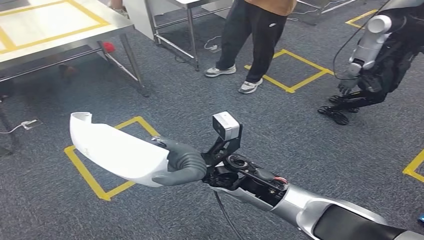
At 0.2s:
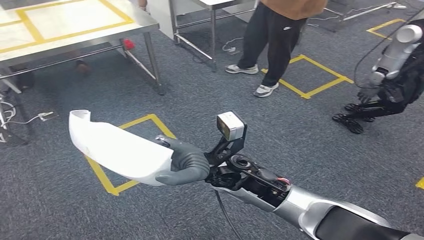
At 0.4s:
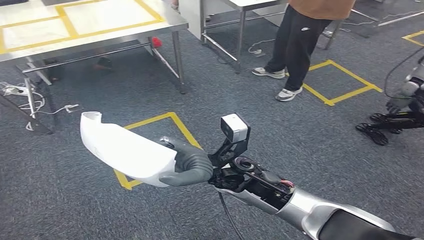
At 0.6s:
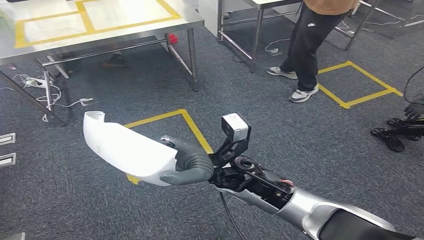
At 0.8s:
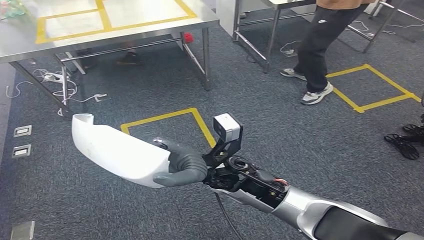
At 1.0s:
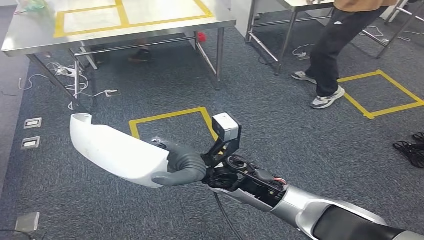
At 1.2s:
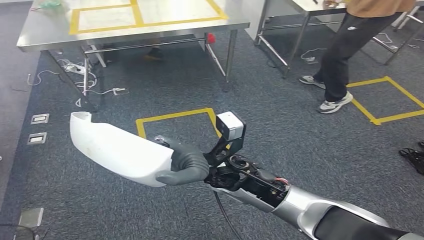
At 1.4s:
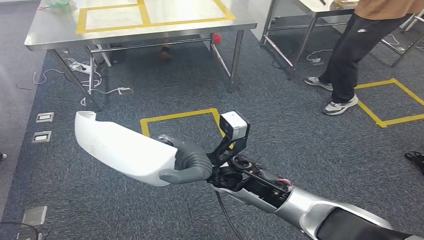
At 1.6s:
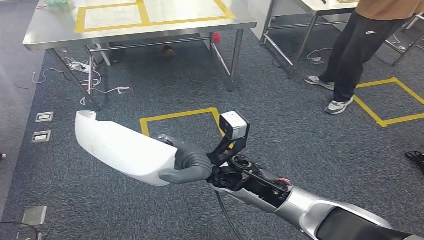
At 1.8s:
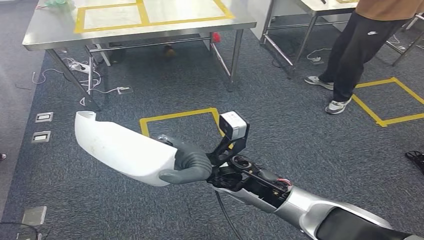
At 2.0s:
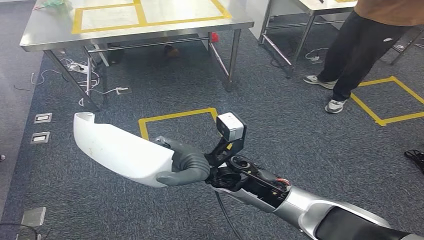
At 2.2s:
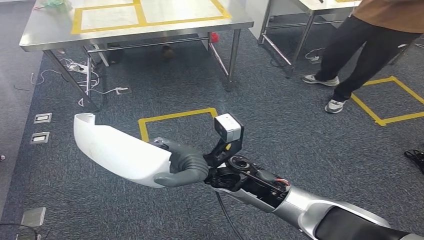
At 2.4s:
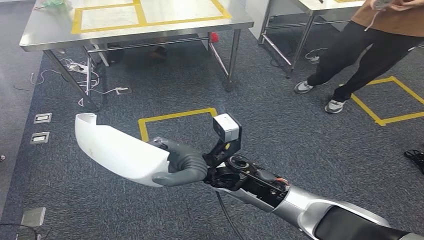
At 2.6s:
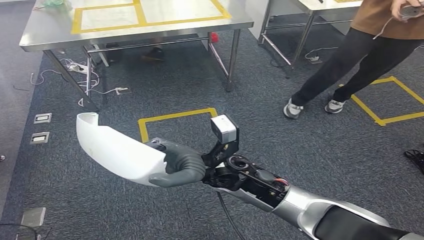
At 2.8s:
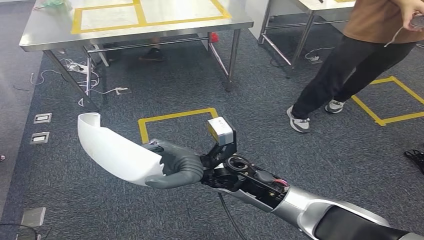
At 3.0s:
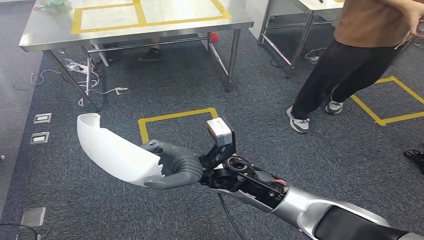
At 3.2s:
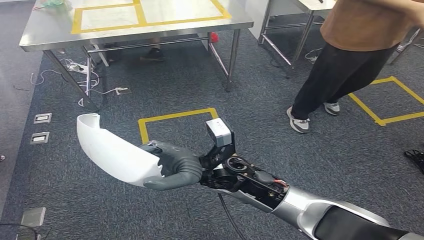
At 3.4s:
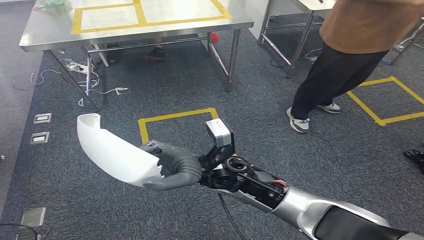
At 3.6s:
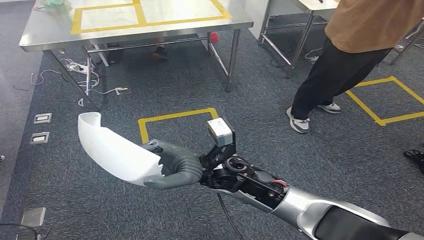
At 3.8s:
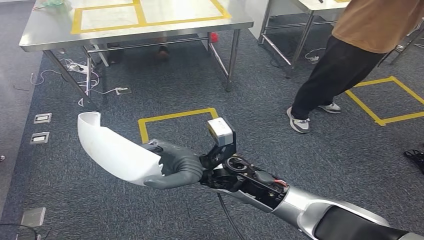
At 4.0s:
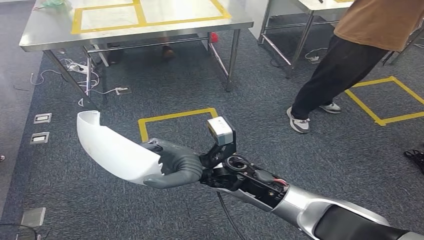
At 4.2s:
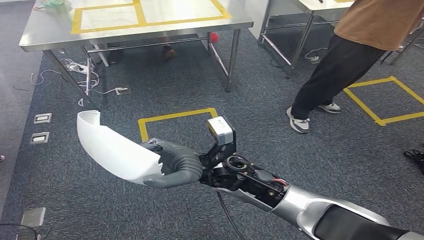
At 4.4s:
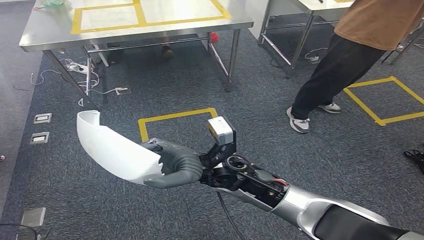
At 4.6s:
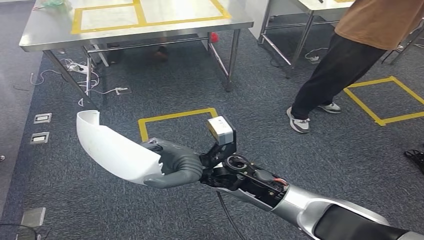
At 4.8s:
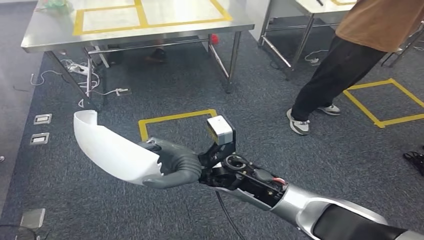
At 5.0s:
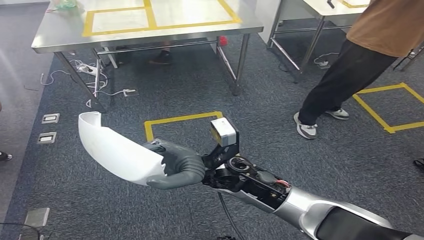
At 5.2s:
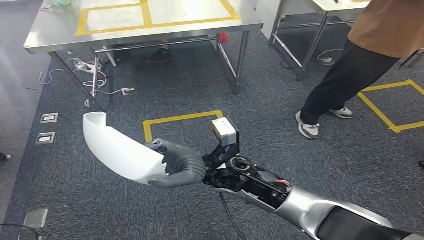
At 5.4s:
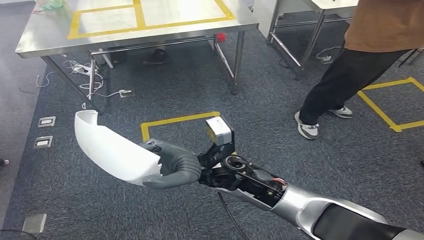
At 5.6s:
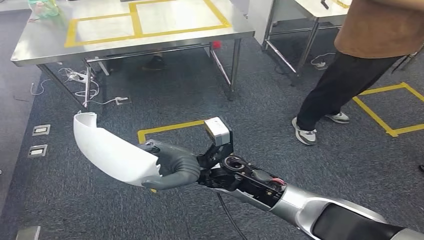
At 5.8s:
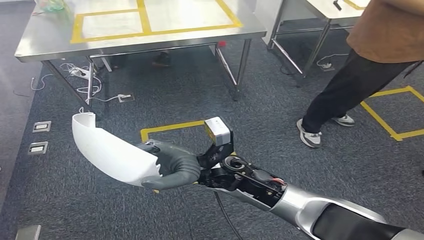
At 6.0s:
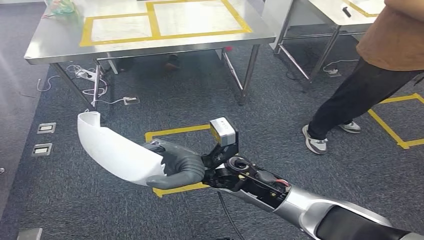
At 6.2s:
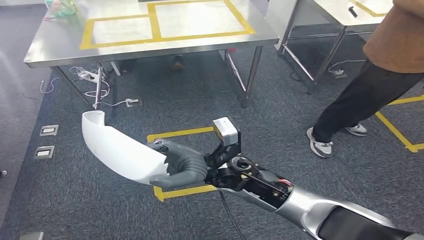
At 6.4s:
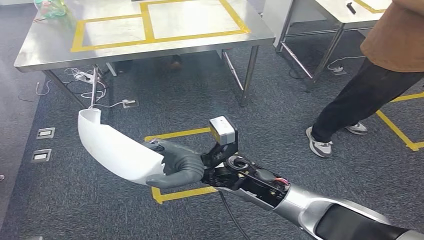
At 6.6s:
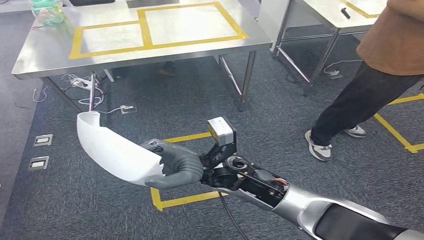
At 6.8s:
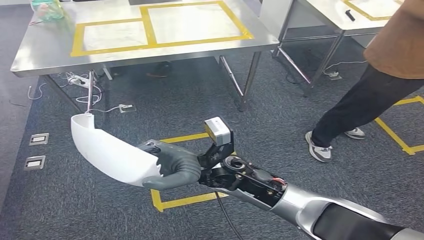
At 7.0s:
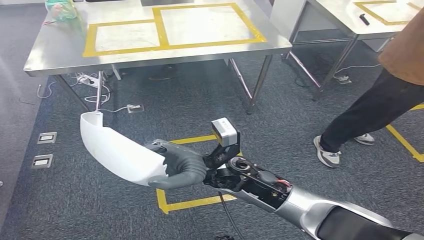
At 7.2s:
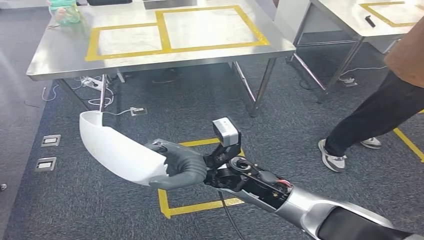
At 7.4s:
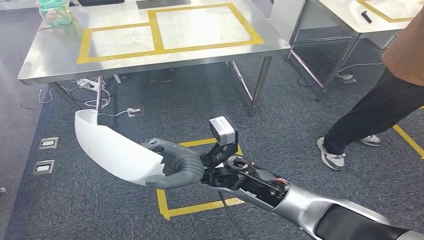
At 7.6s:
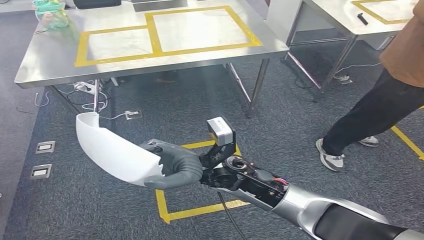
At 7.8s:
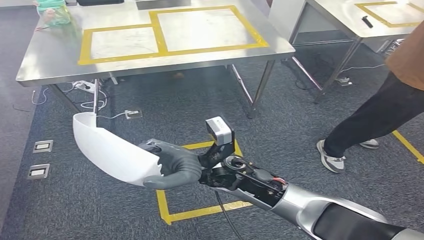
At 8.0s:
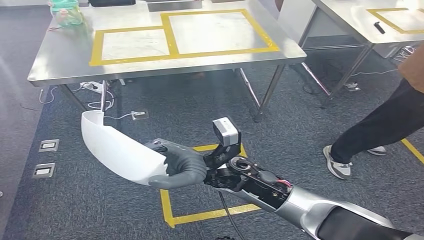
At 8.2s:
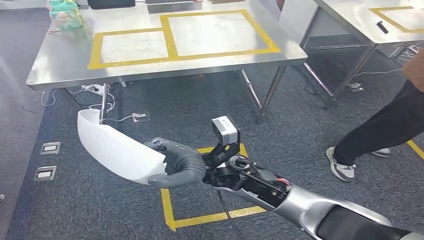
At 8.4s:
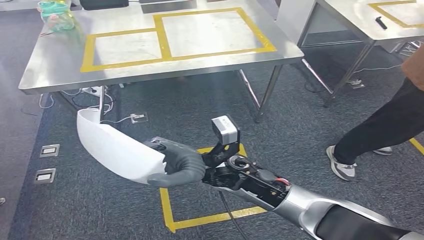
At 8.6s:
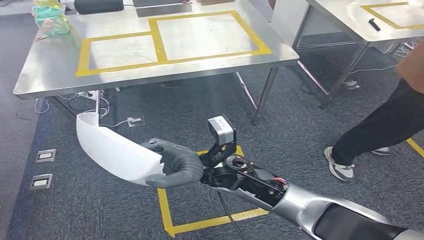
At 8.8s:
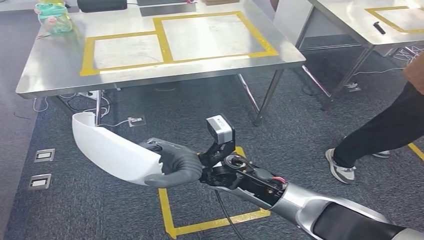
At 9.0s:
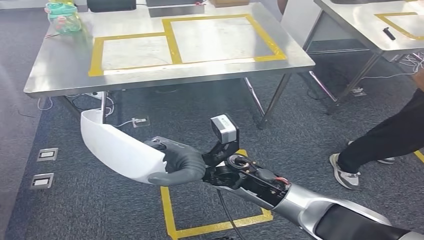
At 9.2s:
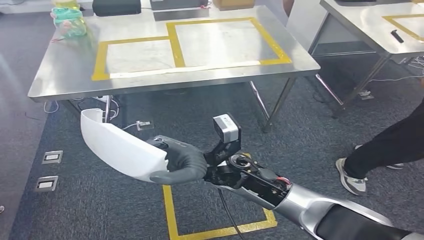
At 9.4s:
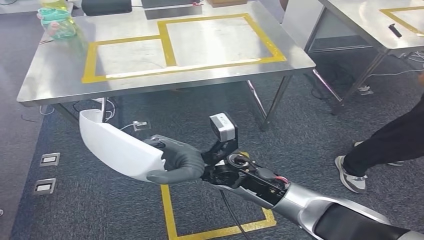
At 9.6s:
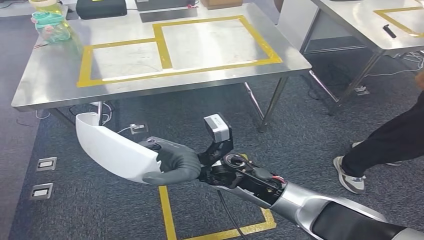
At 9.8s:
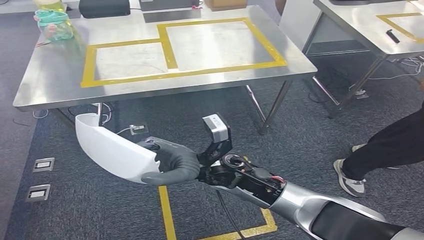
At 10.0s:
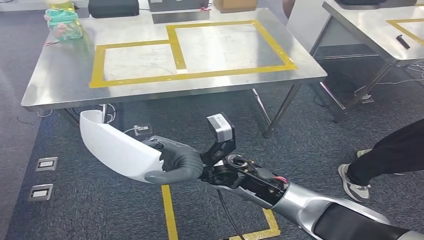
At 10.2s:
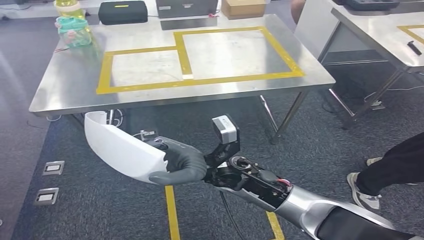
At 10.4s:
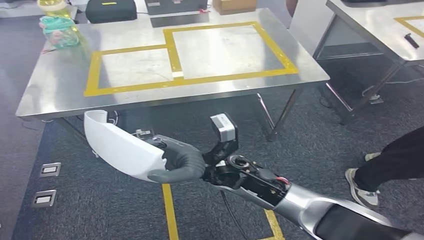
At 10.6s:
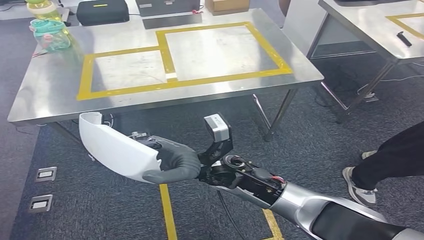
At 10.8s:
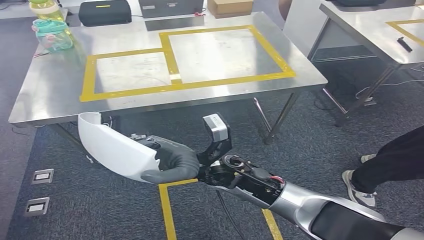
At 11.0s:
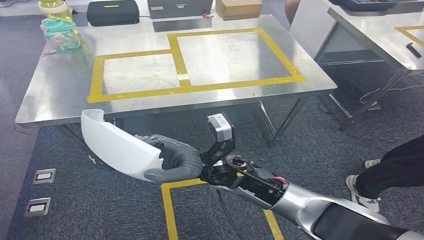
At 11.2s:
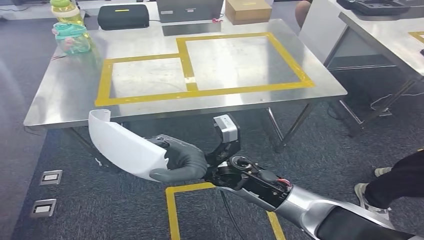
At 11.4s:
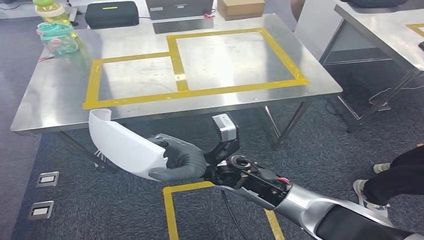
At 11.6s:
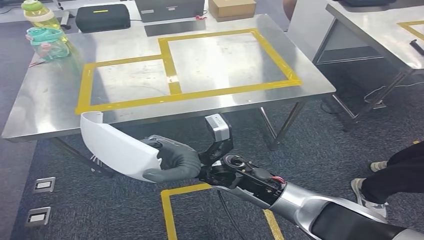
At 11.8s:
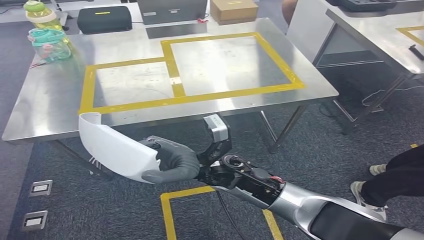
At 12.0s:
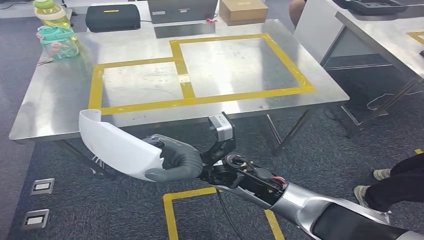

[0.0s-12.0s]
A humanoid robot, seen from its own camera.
Step, 0.0s to 8.2s: Bring the small component to the front of the workbench.
1.6s to 3.0s: There are only small adjustments of the hands.
3.0s to 4.4s: The two hands keep their place.

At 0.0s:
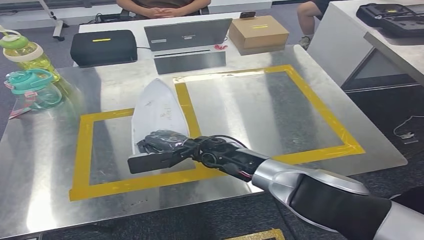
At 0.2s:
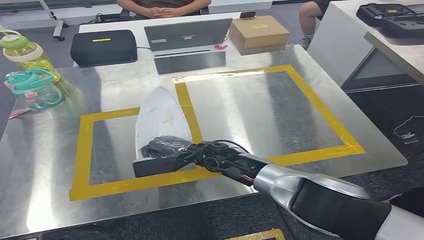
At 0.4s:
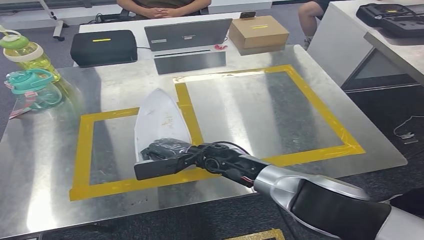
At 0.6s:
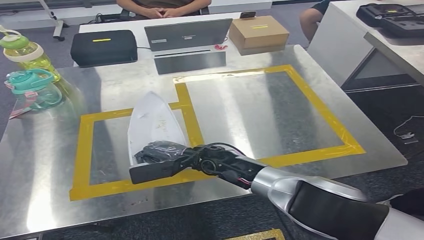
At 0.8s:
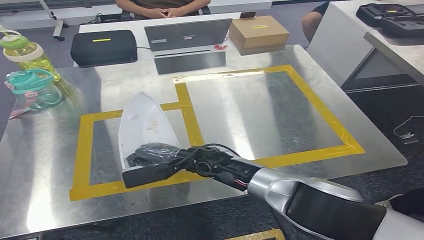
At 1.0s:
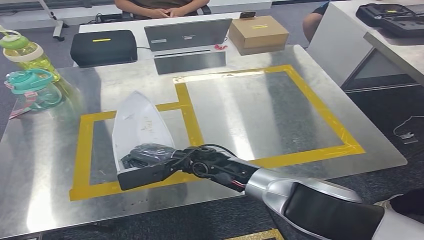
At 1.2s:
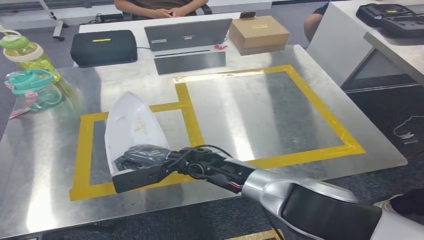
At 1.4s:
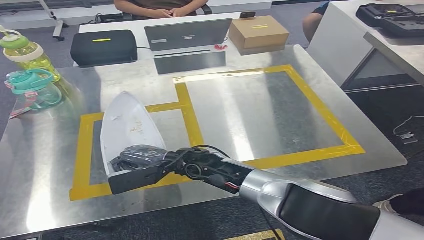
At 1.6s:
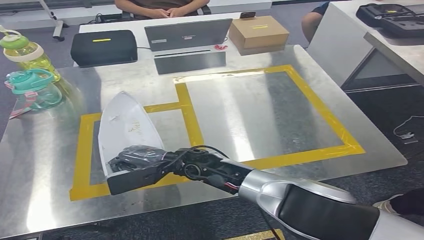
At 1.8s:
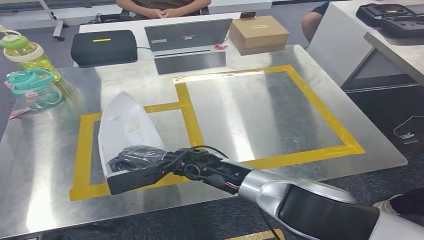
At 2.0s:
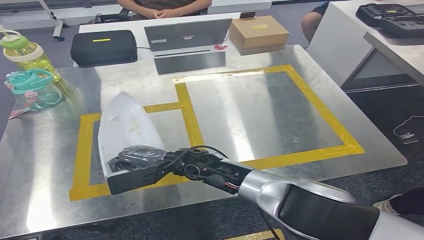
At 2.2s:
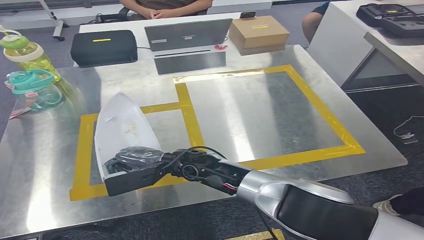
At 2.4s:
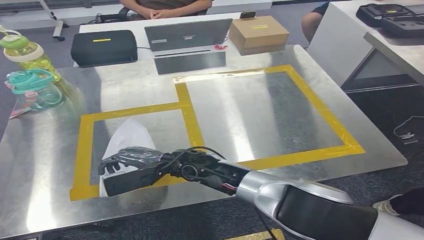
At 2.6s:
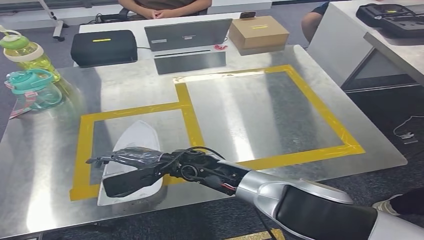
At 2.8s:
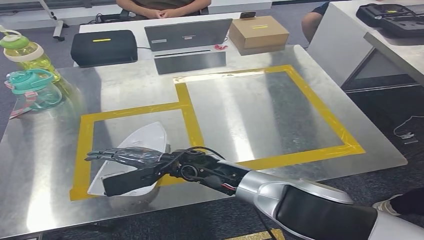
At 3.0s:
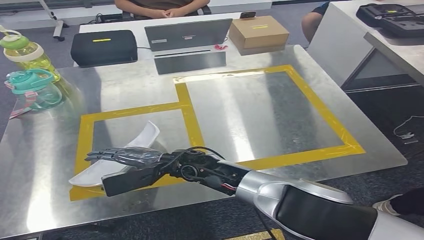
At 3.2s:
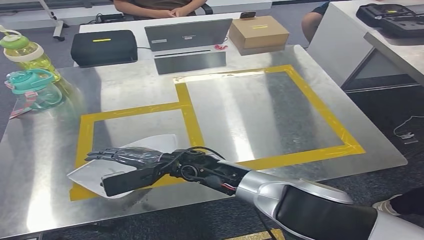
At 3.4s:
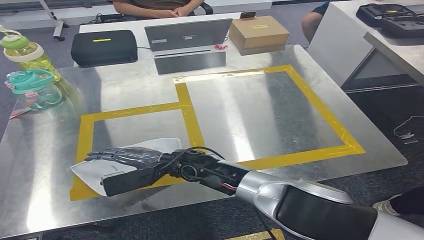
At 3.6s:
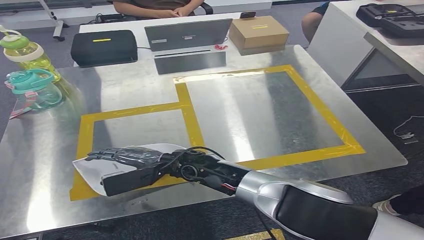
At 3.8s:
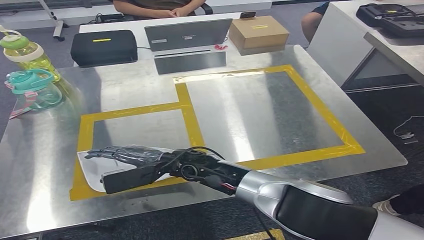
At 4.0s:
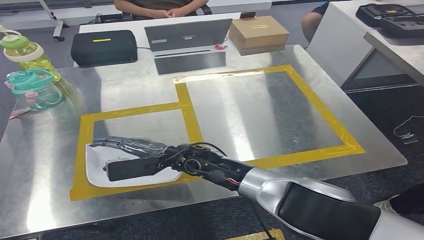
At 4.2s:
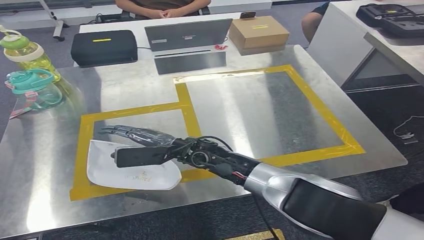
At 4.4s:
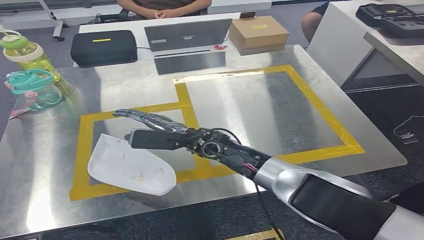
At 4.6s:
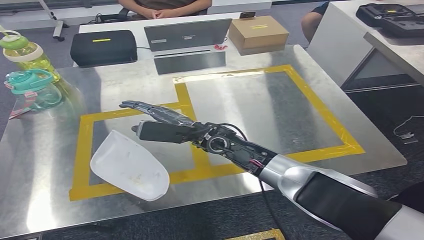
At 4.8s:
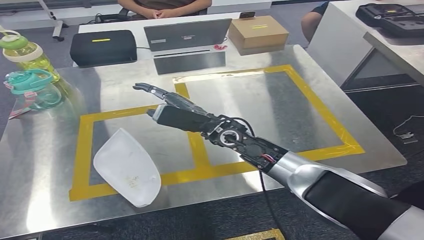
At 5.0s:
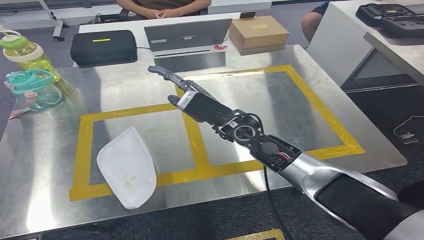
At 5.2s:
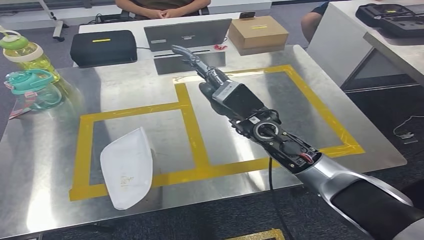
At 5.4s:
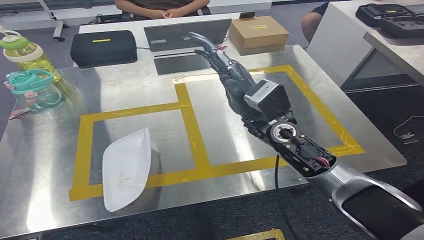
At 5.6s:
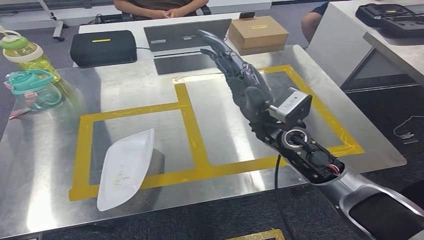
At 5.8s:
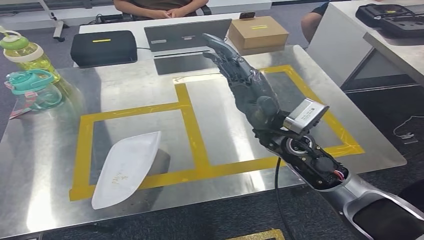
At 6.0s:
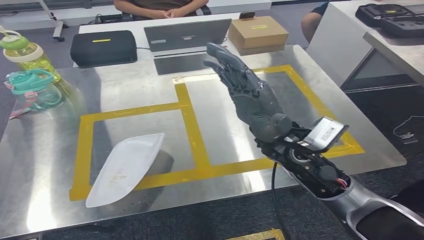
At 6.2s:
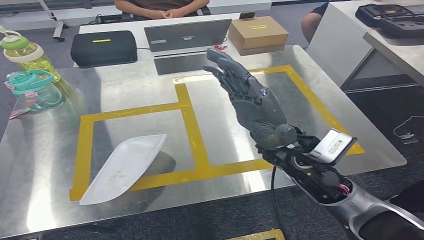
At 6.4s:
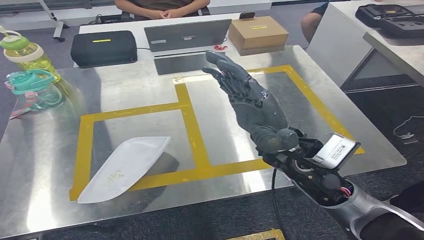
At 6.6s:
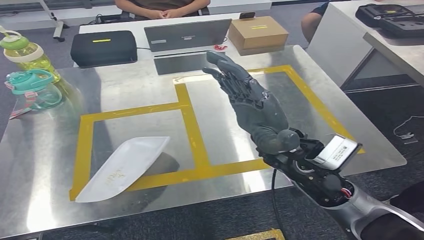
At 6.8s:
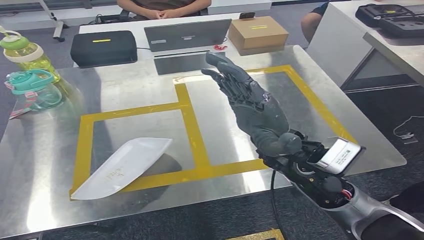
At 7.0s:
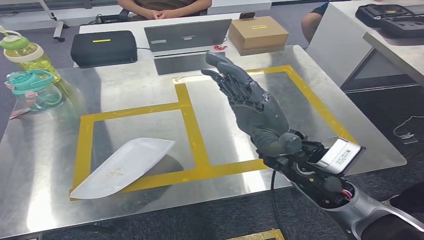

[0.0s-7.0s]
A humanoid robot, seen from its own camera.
0.0s to 4.2s: The hands stay close to where they were, moving slightly.
4.2s to 5.6s: The right hand heads to the right and upward, covering some 20 cm.
5.6s to 7.0s: The right hand travels backward by some 5 cm.
